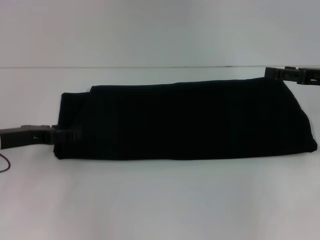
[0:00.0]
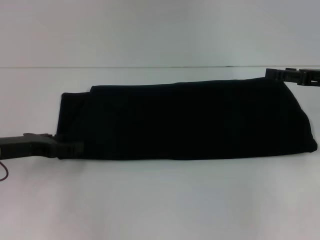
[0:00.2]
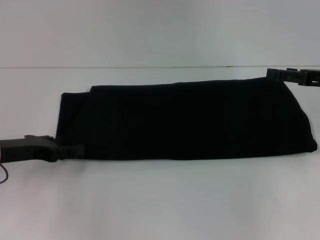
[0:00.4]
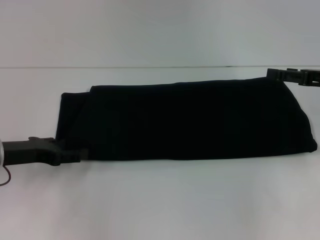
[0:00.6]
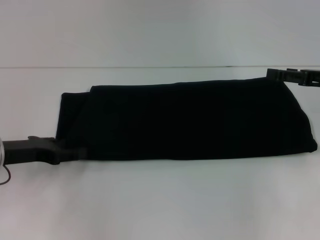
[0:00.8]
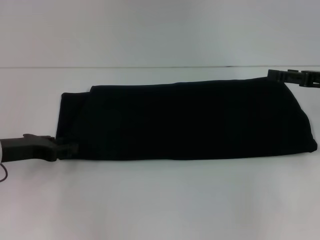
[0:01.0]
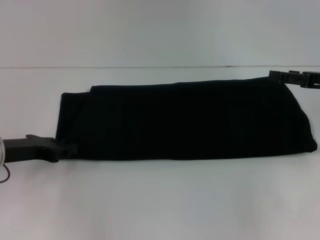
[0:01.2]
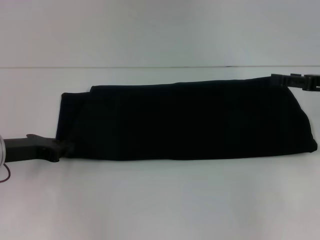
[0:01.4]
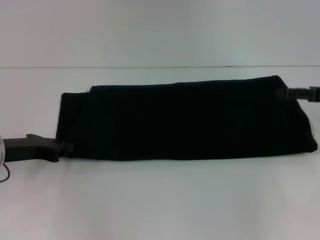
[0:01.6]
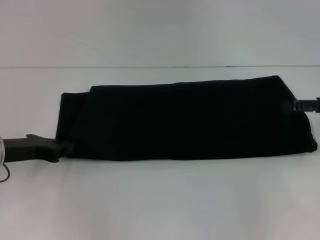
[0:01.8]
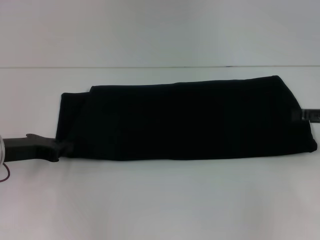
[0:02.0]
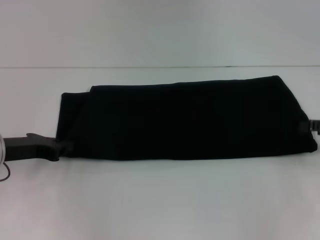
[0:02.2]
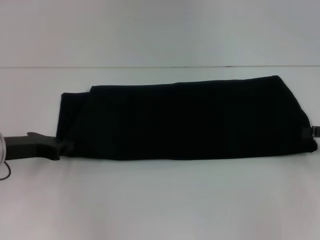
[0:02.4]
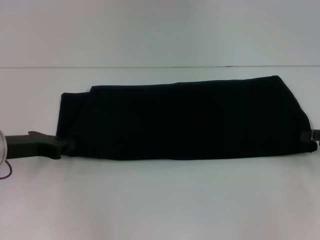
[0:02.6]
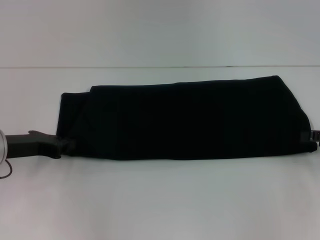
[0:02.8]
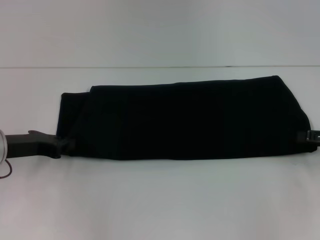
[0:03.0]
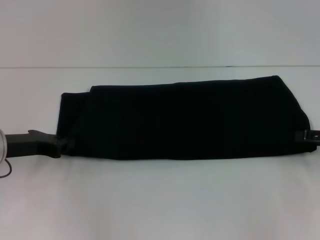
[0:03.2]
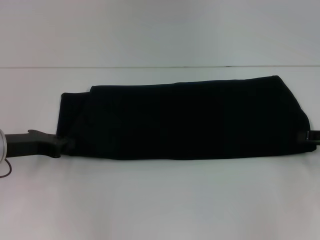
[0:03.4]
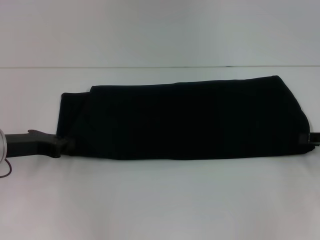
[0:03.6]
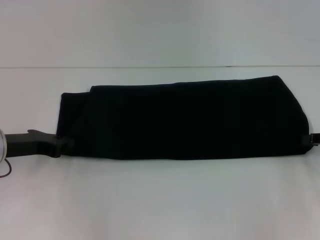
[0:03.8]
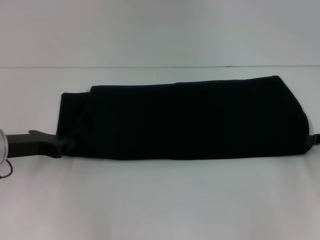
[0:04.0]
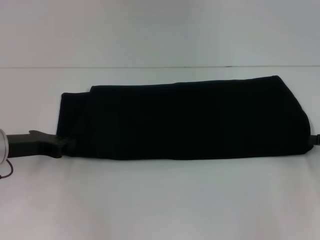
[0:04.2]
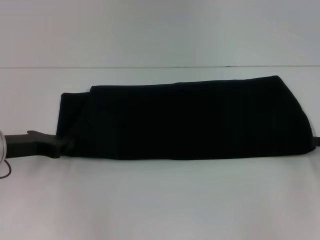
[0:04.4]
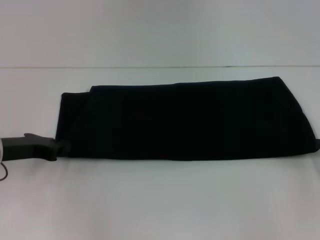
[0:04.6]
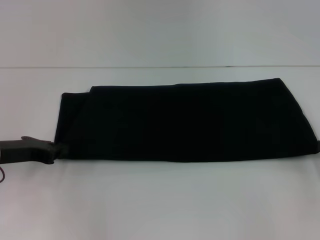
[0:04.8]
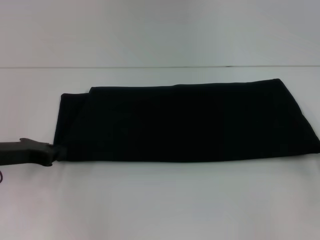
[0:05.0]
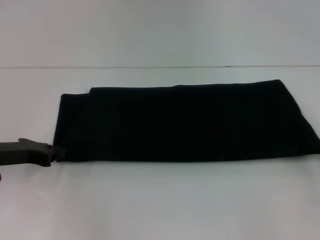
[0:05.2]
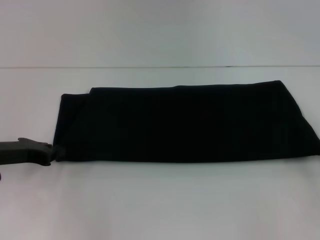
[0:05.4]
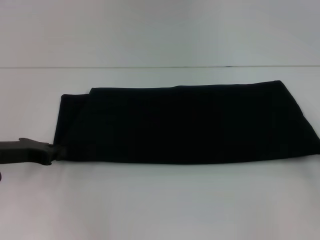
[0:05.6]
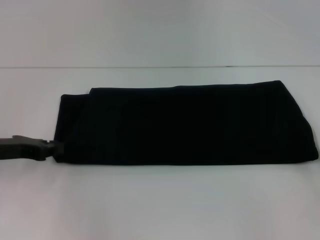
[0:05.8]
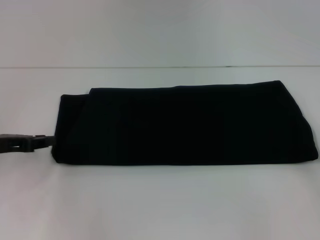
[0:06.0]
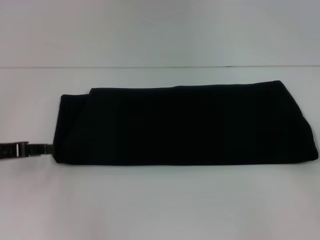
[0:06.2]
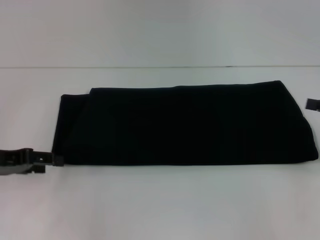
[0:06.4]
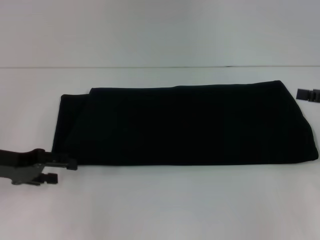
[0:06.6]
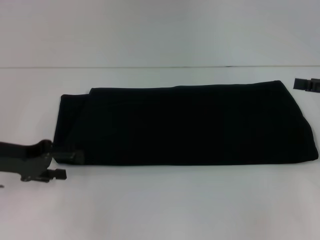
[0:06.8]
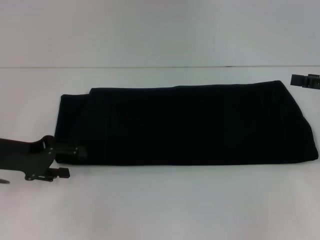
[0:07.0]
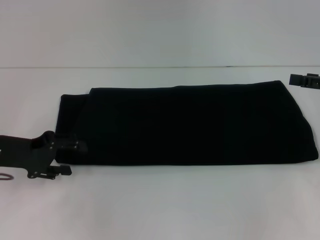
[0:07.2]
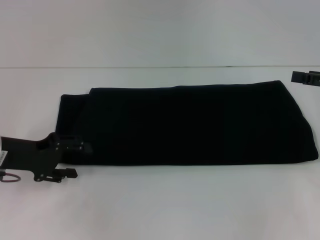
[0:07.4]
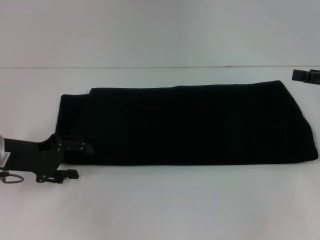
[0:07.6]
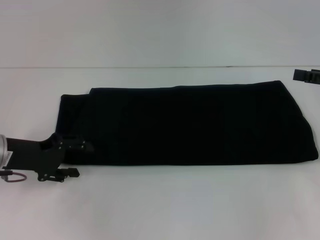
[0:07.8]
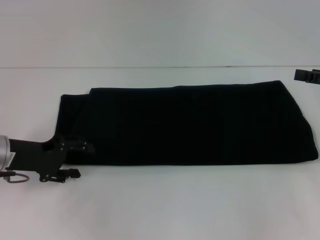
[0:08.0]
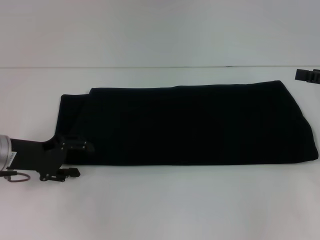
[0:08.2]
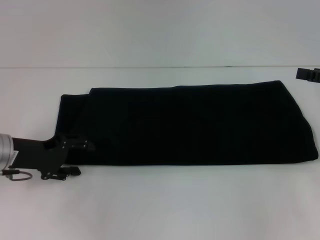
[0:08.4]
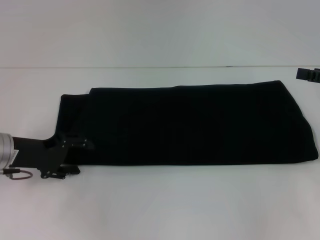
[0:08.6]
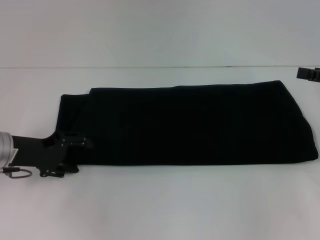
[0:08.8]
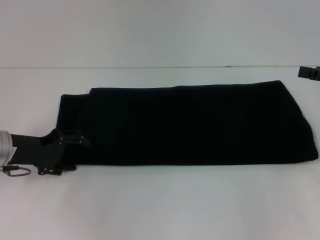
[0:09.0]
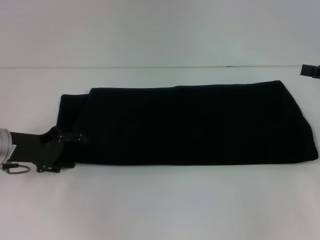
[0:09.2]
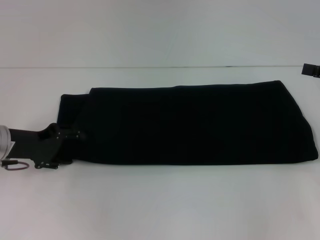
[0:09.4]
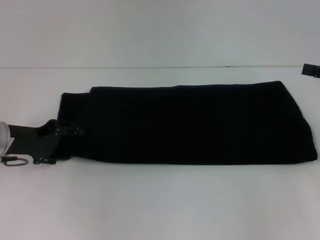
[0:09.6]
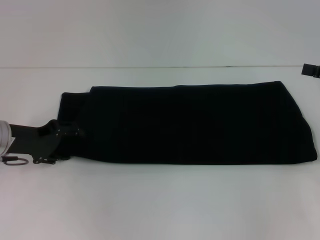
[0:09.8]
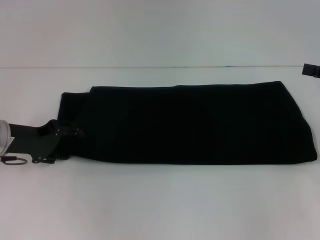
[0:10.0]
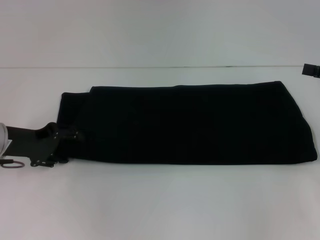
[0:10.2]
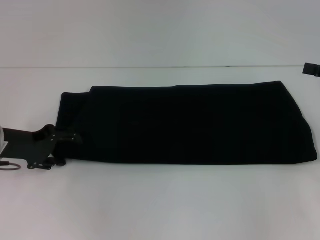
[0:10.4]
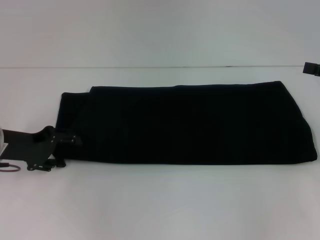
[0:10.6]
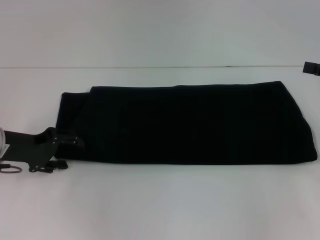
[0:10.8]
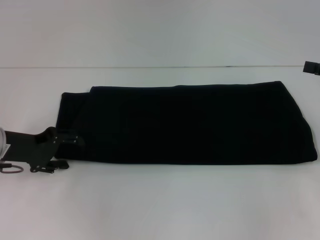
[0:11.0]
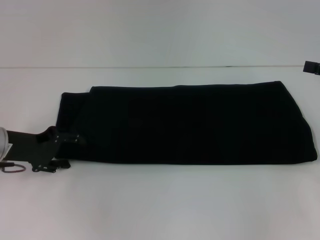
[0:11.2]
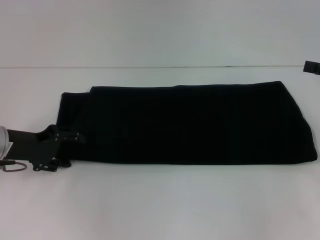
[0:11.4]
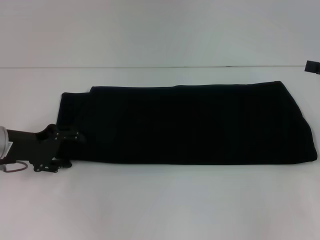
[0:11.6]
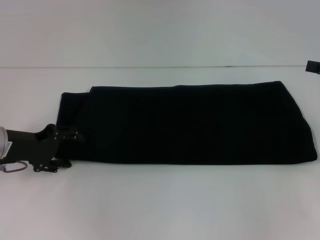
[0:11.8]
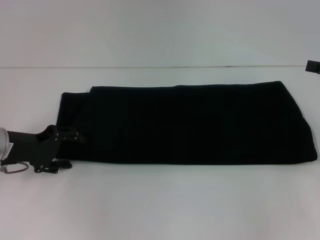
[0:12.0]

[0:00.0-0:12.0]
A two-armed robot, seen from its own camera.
0:00.0 to 0:01.6: The left gripper closes.
0:01.6 to 0:03.0: The right gripper changes place by approximately 5 cm.
0:04.4 to 0:06.0: The right gripper shifts by some 5 cm.
0:06.0 to 0:07.6: The left gripper opens.
0:07.6 to 0:12.0: There are only small adjustments of the grippers.

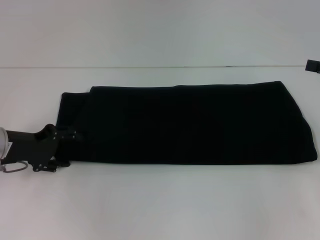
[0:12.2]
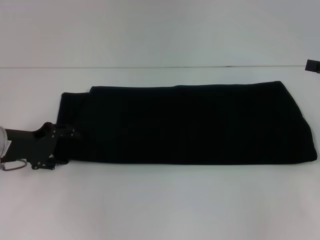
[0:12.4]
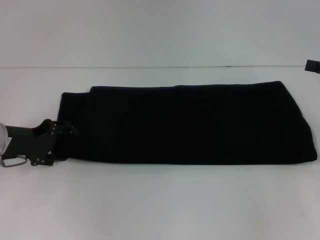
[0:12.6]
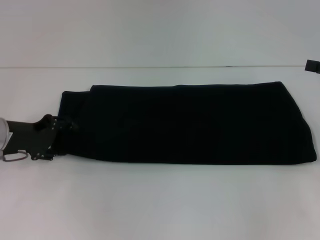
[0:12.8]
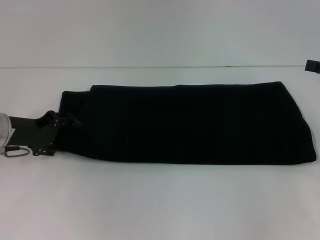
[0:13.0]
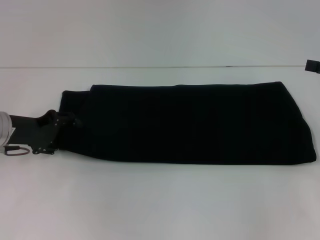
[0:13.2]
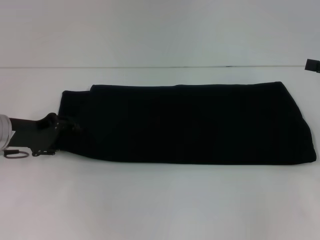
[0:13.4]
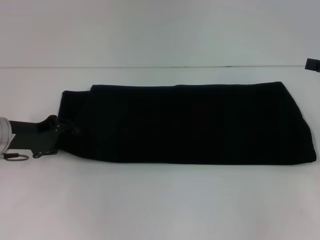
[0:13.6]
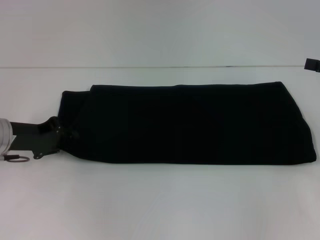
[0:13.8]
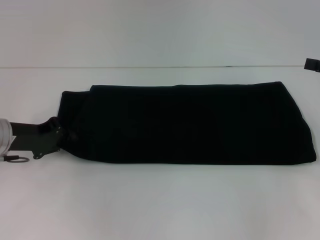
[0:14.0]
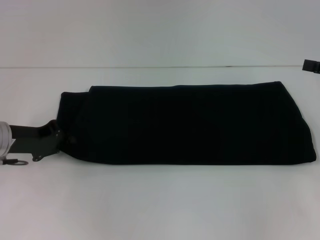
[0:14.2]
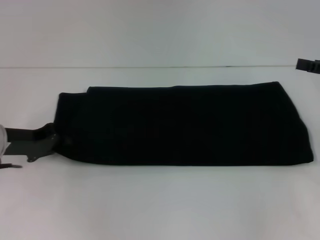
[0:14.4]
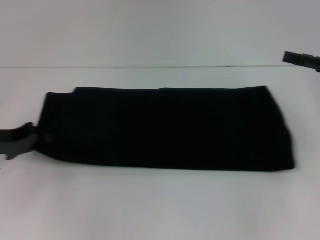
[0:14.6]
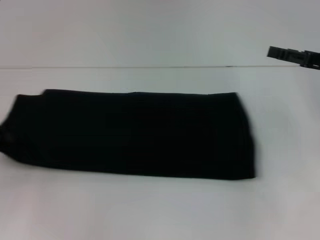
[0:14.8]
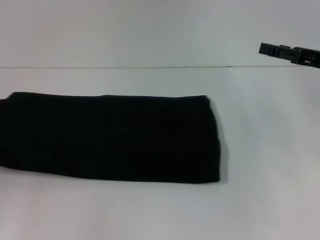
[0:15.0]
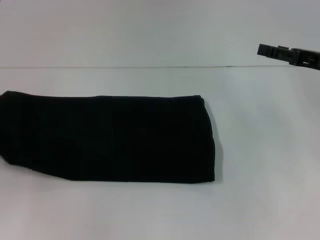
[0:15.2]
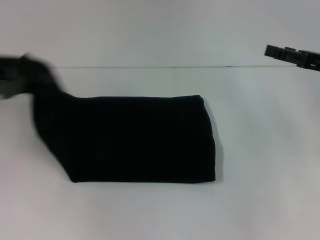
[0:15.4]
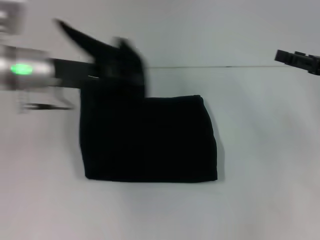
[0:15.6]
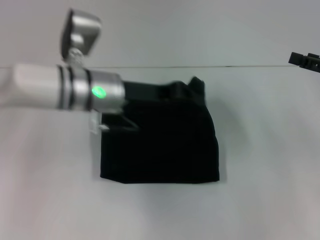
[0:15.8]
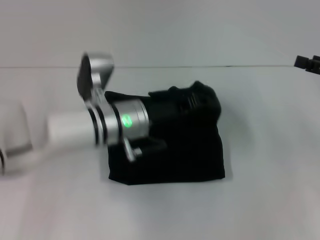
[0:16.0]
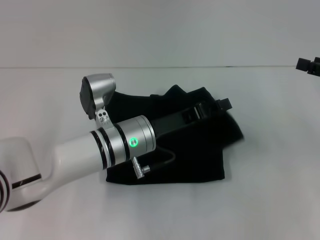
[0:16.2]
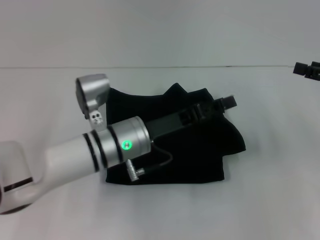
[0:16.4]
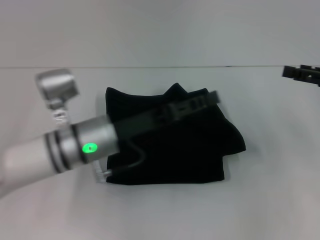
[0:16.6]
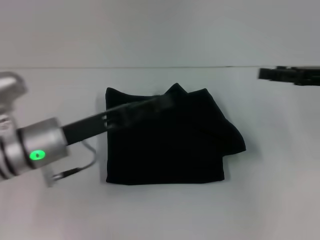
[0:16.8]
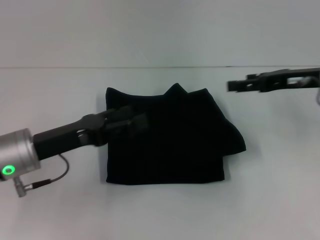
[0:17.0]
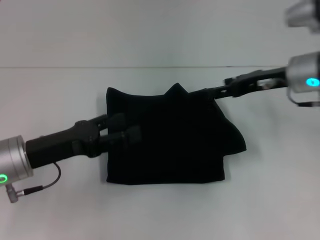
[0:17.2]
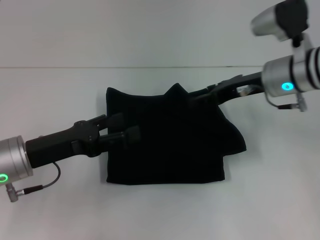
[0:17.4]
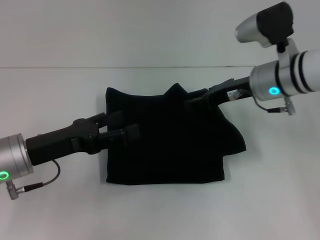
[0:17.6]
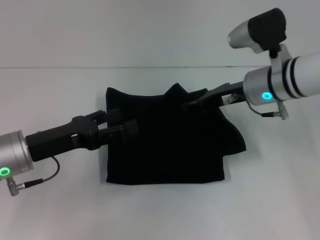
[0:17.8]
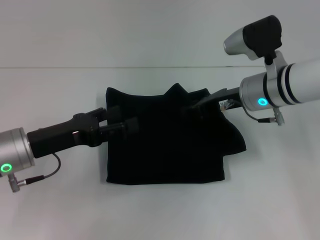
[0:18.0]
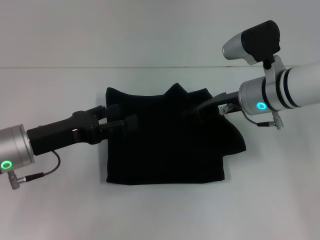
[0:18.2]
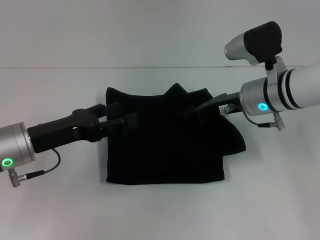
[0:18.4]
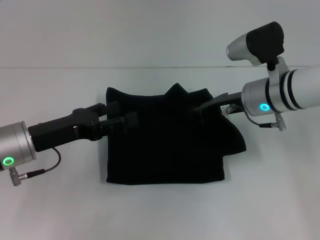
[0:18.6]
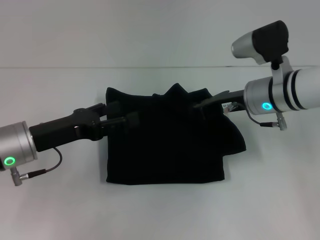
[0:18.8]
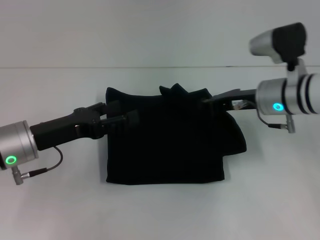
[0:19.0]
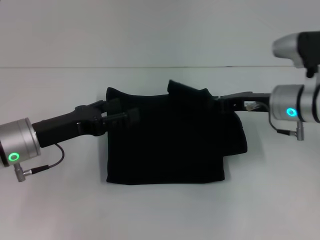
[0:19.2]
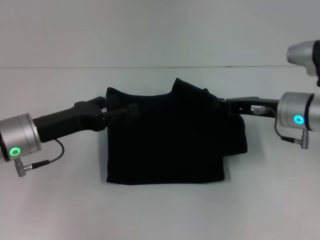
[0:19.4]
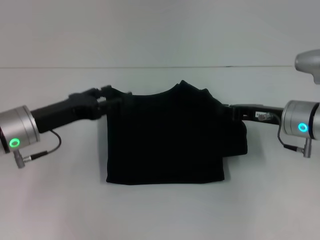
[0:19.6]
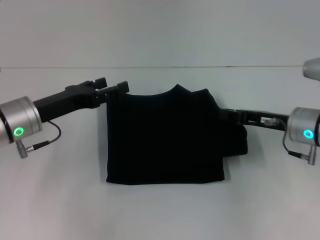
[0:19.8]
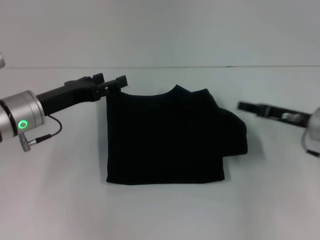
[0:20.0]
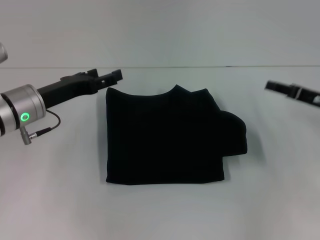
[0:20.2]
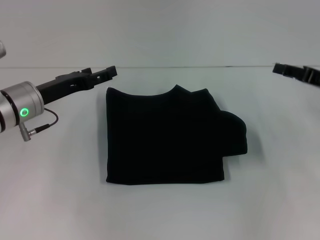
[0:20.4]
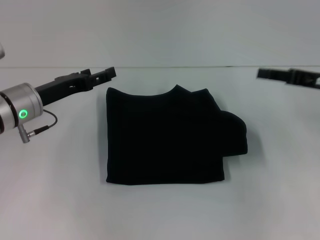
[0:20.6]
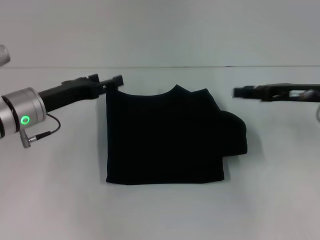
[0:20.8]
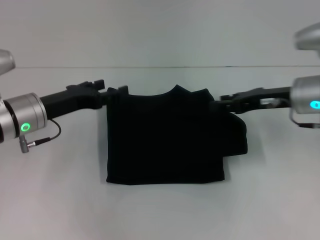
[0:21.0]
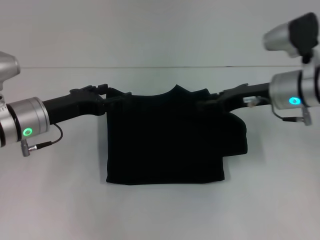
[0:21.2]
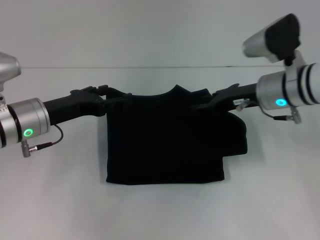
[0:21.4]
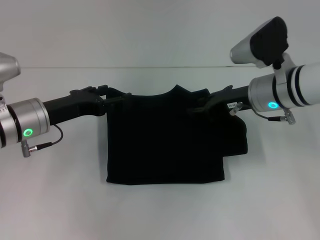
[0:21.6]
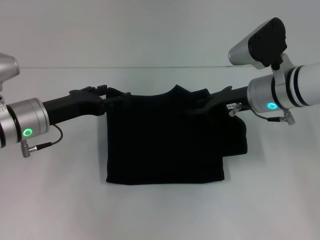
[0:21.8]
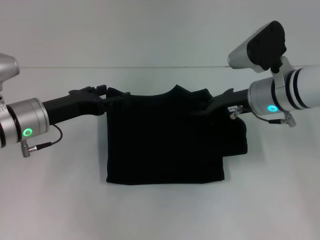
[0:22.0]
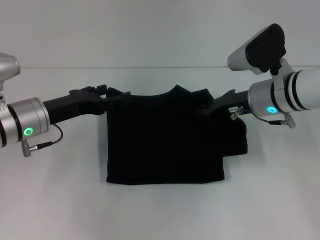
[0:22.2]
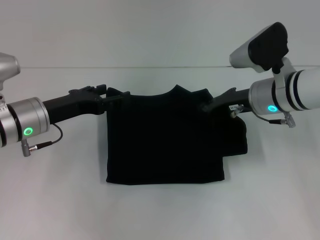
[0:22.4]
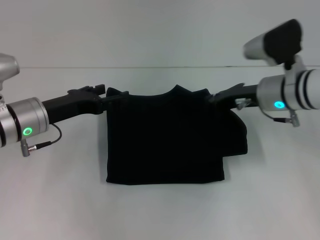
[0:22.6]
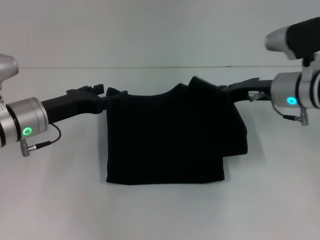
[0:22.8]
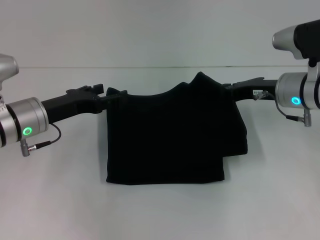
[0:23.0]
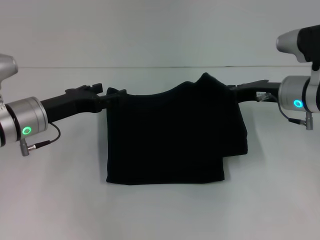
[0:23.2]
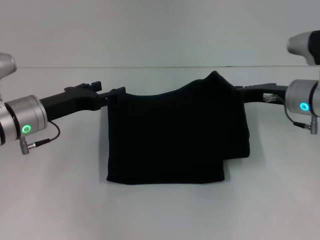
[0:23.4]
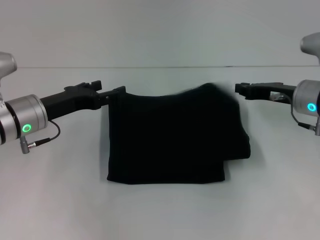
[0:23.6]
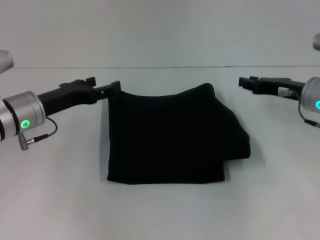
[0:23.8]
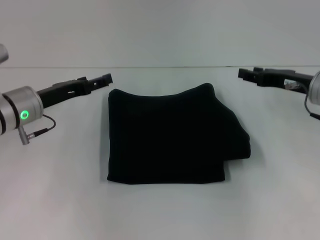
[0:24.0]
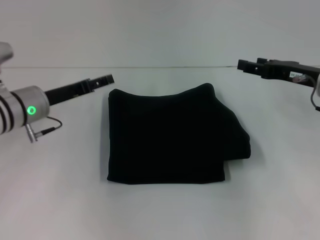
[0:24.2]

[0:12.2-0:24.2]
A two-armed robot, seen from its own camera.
Step, 0:12.2 to 0:16.4: Fold the clothes with your left hand.
0:12.2 to 0:13.8: The grippers make only small movements.
0:13.8 to 0:15.2: The right gripper moves to the left, about 5 cm, while the left gripper goes roughly 15 cm to the left and upward, and closes its fingers.
0:15.2 to 0:16.6: The left gripper heads to the right, covering some 30 cm, and opens.
0:16.6 to 0:18.2: The left gripper is displaced to the left by approximately 15 cm, and opens its fingers. The right gripper goes about 20 cm to the left, and closes up.
0:18.2 to 0:19.8: The right gripper moves to the right, roughly 10 cm, and closes.
0:19.8 to 0:21.2: The right gripper goes about 5 cm upward, moves about 10 cm to the right and comes back, and opens.
0:21.2 to 0:22.6: The right gripper closes its fingers.
0:22.6 to 0:24.2: The right gripper goes about 10 cm to the right, and opens up.
